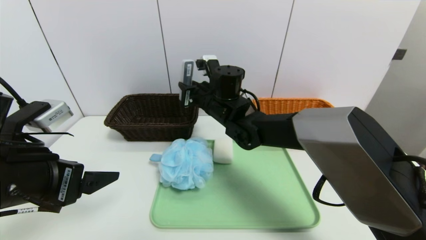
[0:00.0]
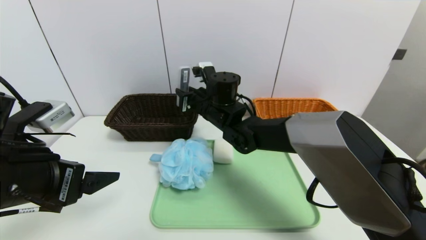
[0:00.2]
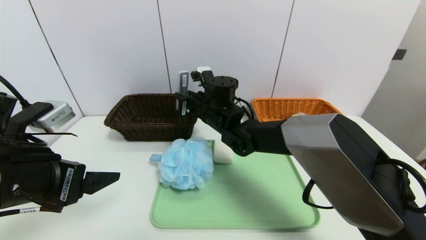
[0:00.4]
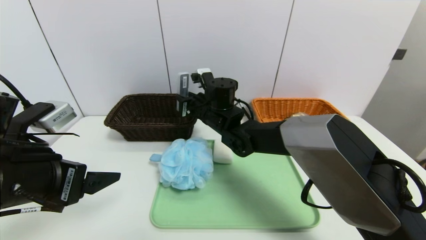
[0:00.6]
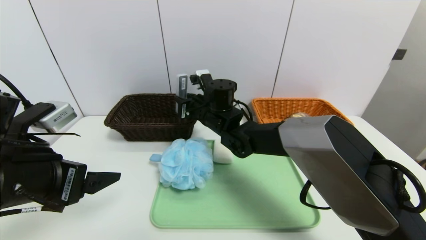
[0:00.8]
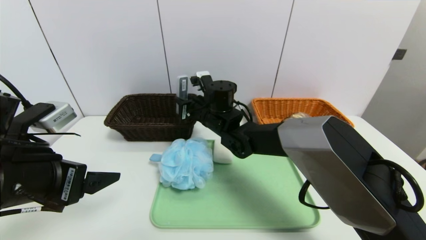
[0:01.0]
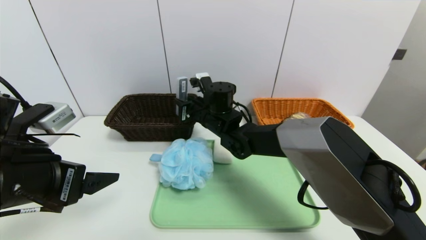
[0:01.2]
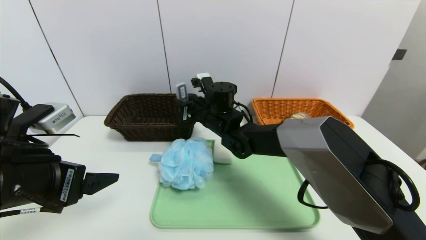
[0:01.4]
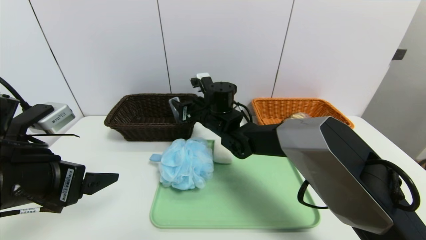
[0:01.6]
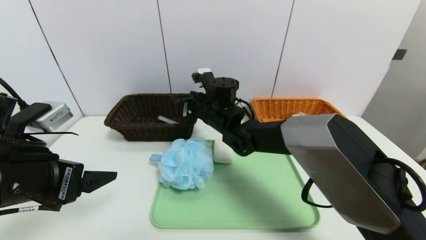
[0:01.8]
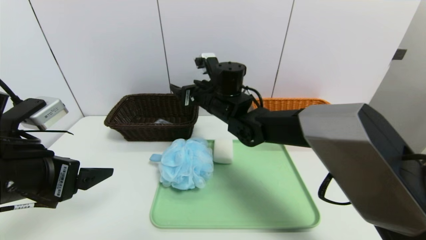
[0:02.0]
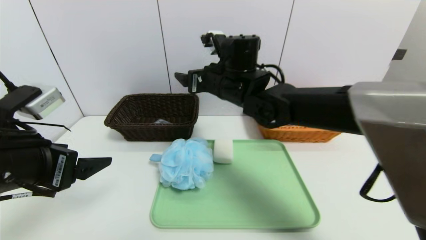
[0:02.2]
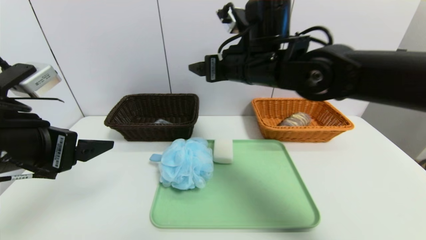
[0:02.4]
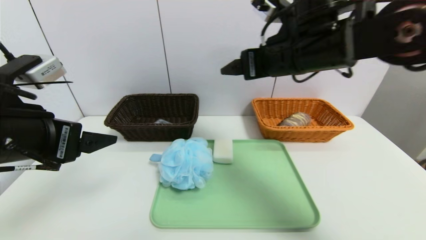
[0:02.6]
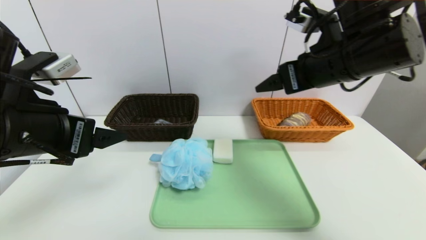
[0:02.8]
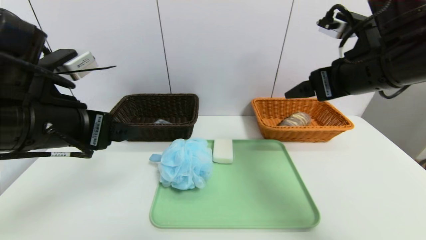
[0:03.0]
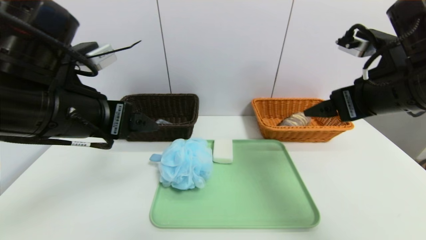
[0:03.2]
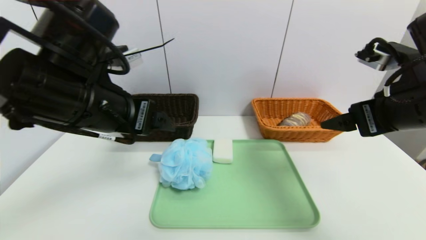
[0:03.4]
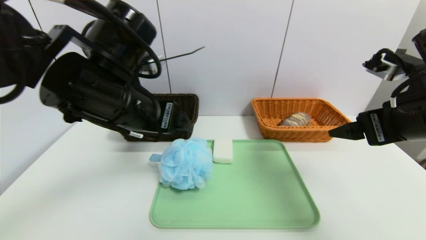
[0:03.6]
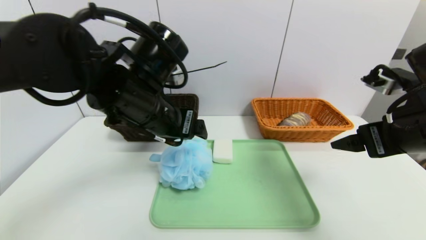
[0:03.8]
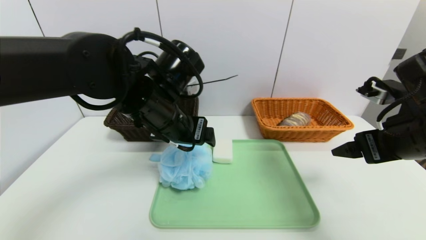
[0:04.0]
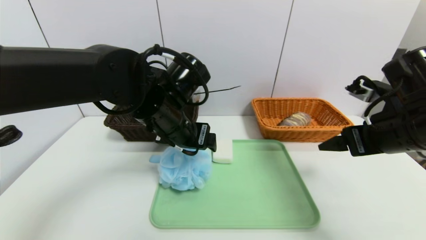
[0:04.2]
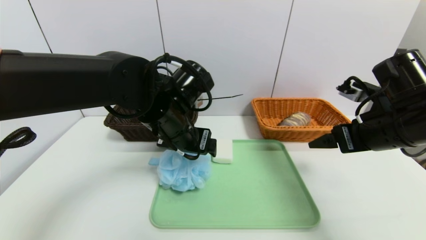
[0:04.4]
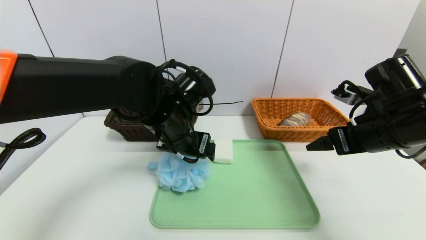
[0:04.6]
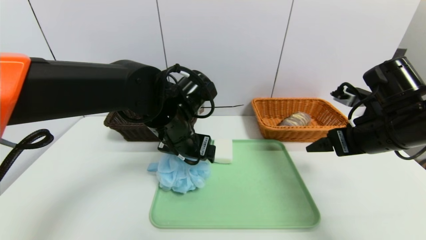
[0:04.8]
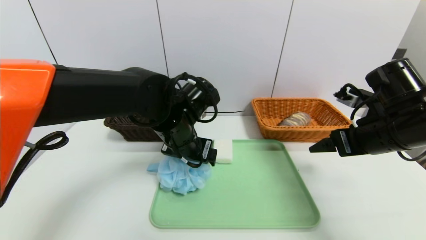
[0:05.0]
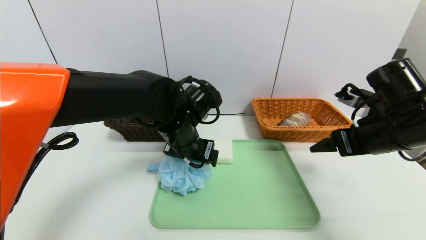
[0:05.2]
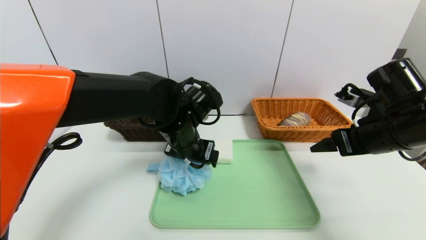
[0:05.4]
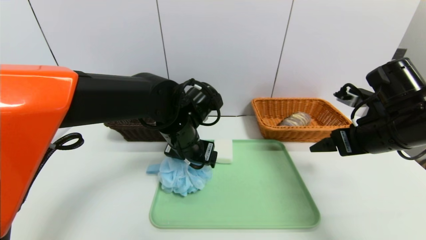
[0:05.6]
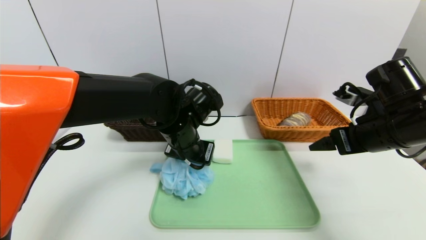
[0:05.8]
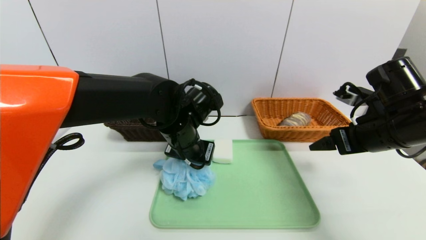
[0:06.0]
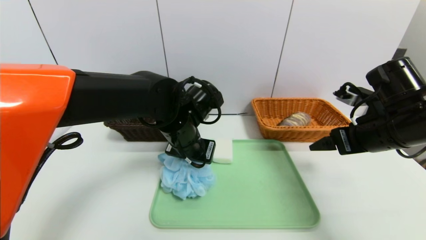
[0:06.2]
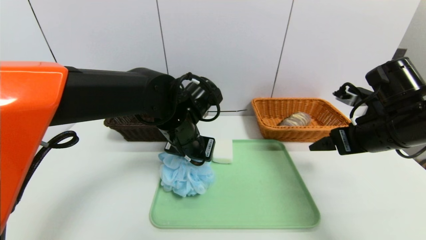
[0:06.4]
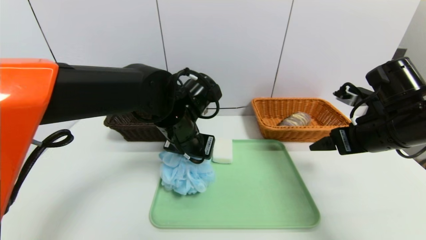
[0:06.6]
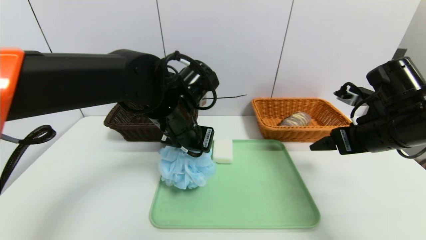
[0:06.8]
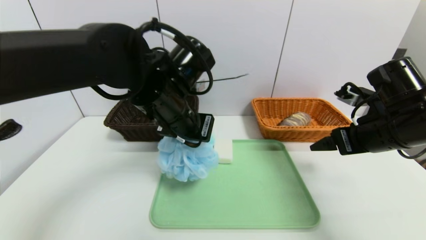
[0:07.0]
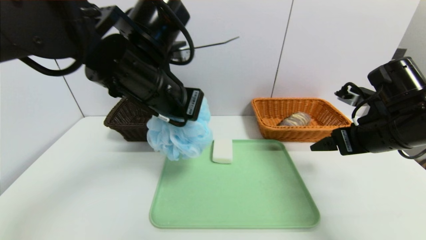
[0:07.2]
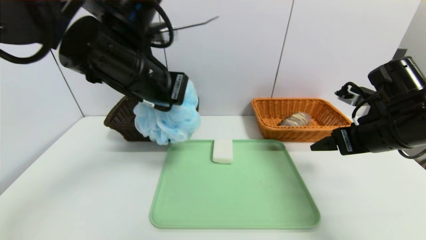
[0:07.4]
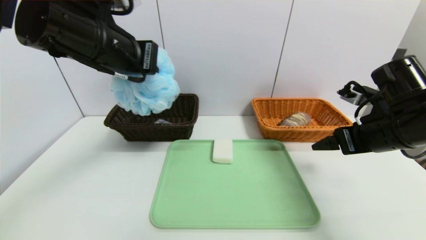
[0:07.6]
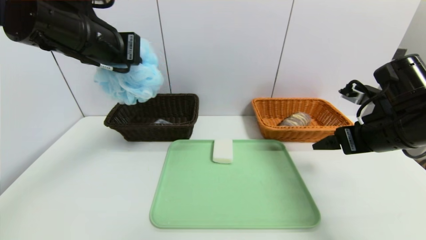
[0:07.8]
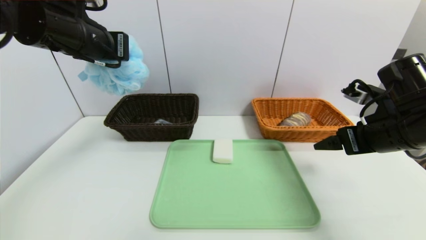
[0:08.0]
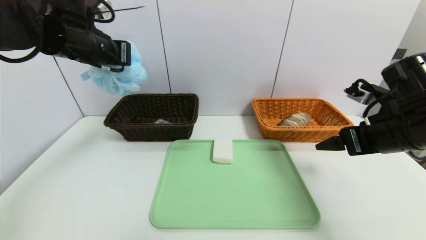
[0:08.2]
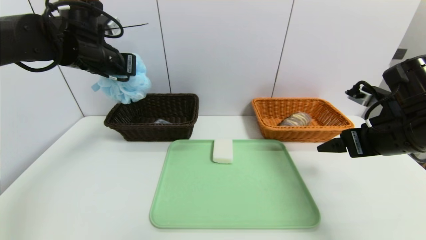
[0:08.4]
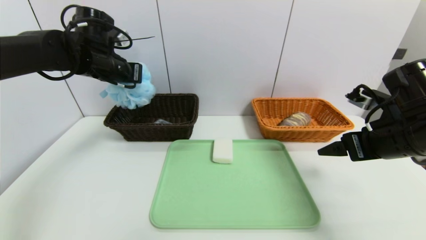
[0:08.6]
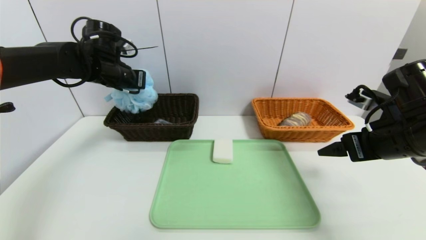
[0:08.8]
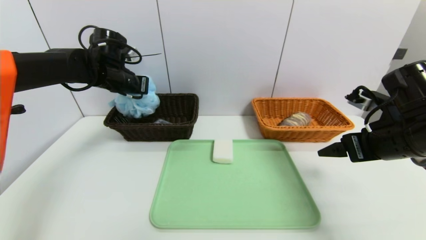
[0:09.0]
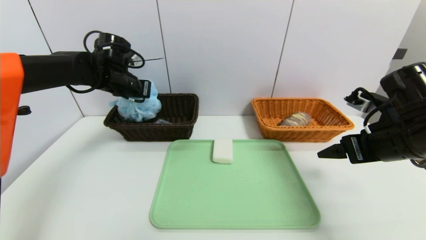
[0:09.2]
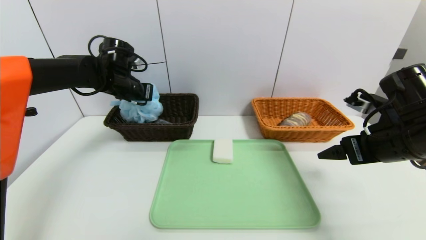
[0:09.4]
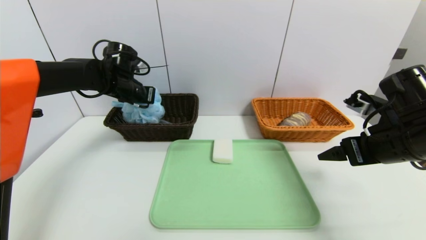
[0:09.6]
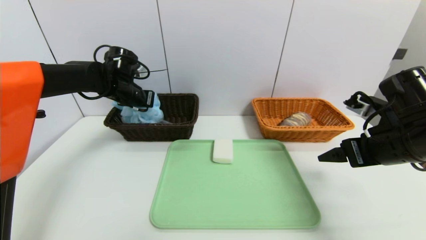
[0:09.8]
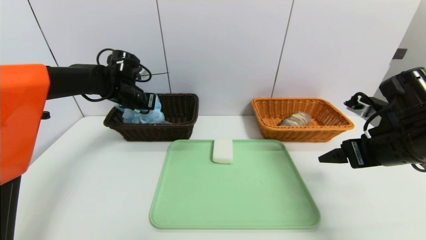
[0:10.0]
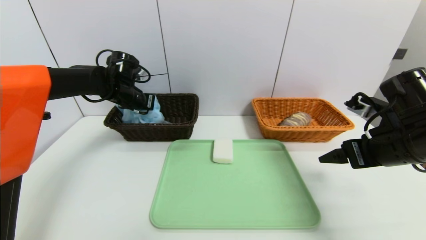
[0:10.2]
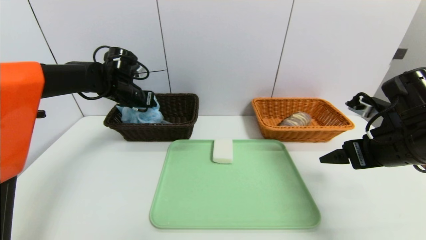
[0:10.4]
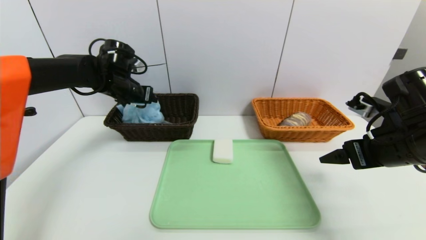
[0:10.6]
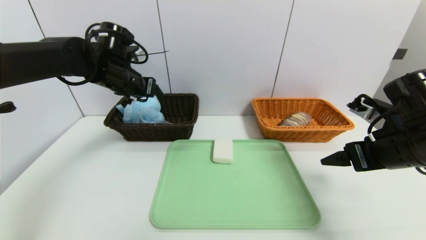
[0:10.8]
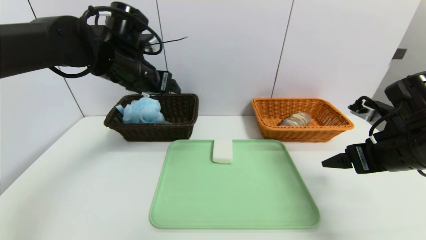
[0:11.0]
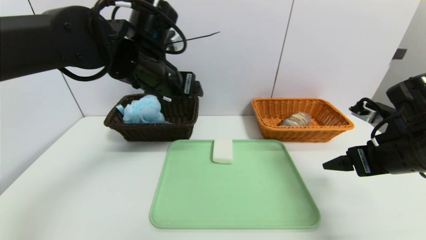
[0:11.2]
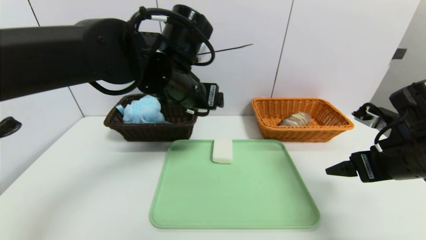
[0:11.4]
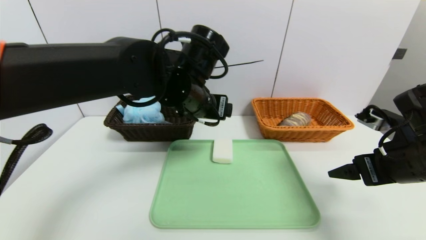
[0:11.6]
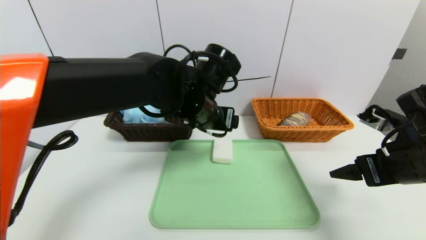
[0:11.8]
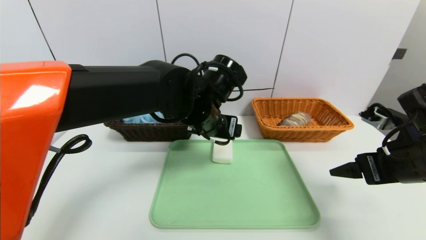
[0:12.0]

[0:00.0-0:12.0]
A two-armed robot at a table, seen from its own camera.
Task of the whole recording: place the food in the right basket with the right gripper, and place the non food items in the left basket with the left gripper.
Step, 0:02.2 to 0:10.6: Grasp the shower sphere and put it in the left basket.
0:00.0 to 0:01.6: The grippers make only small movements.
0:01.6 to 0:03.0: The right gripper is displaced to the right, upward and backward by some 30 cm, and opens its fingers; the left gripper heads upward, covering approximately 5 cm.
0:03.0 to 0:04.4: The left gripper goes some 20 cm to the right, forward and downward. Meanwhile the right gripper shifts approximately 10 cm downward and to the right.
0:04.4 to 0:06.0: The left gripper closes its fingers.
0:06.0 to 0:07.6: The left gripper is displaced upward and to the left by about 20 cm, and closes its fingers.
0:07.6 to 0:09.0: The left gripper is displaced forward, downward and to the left by approximately 20 cm.
0:09.0 to 0:10.4: The left gripper opens.
0:10.4 to 0:12.0: The left gripper travels to the right and backward by approximately 25 cm, and opens up.

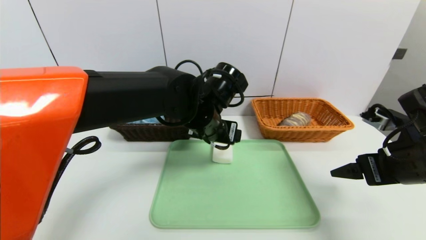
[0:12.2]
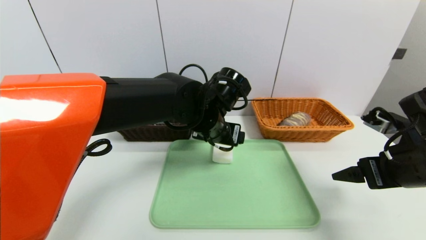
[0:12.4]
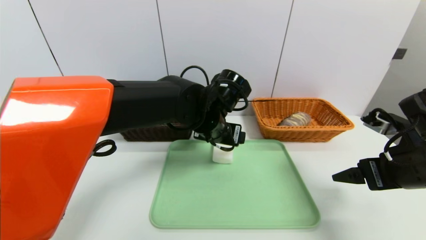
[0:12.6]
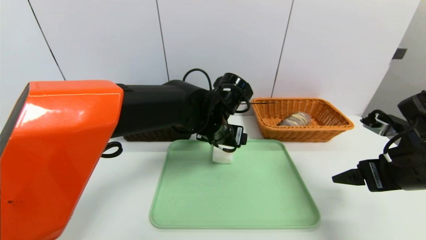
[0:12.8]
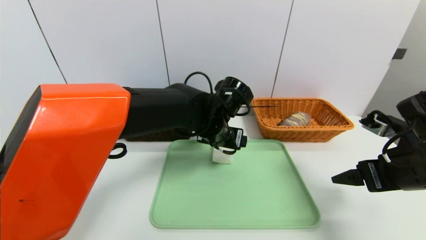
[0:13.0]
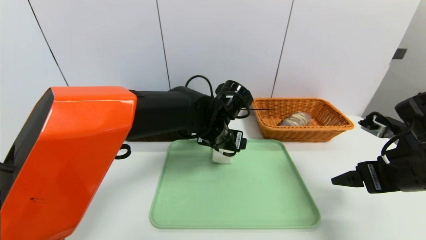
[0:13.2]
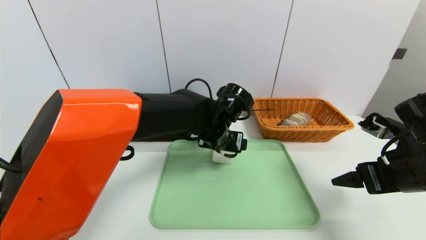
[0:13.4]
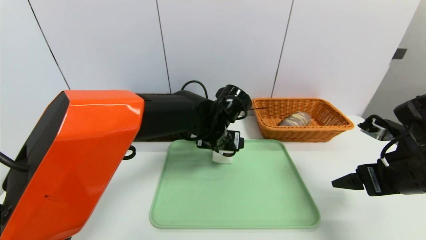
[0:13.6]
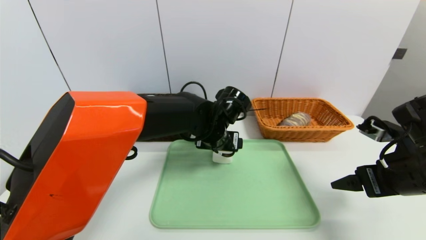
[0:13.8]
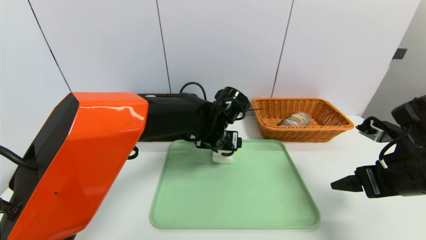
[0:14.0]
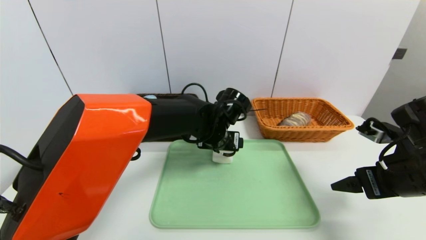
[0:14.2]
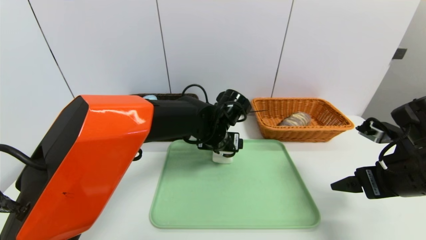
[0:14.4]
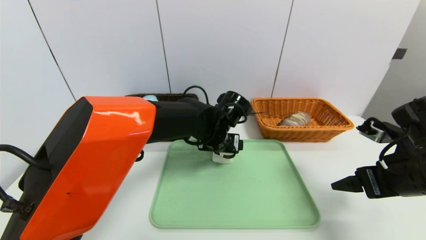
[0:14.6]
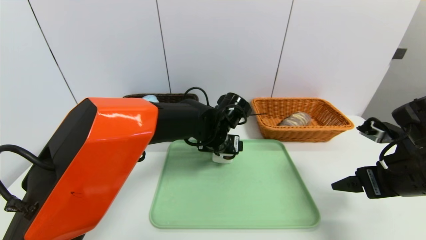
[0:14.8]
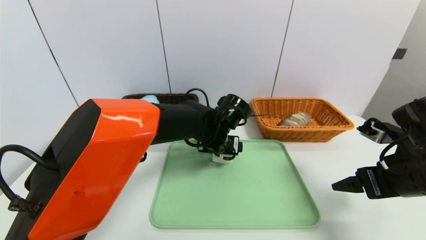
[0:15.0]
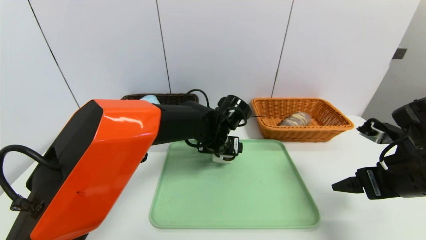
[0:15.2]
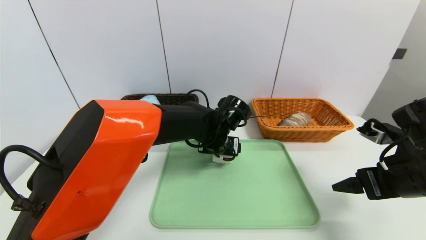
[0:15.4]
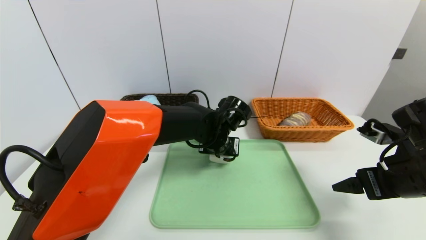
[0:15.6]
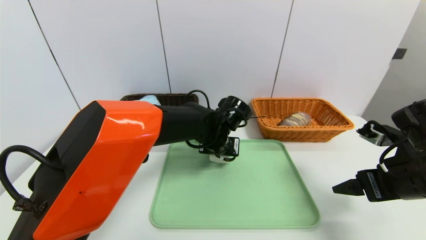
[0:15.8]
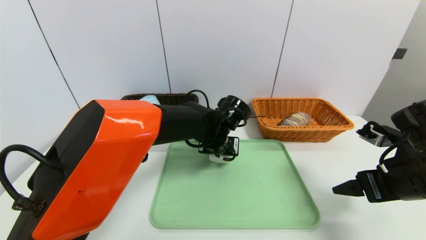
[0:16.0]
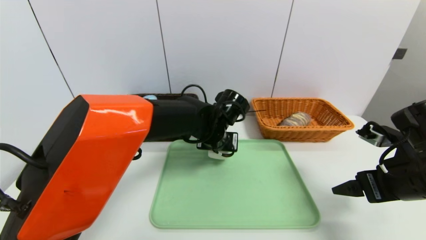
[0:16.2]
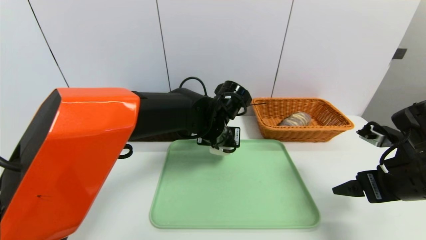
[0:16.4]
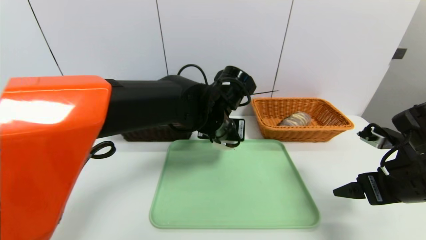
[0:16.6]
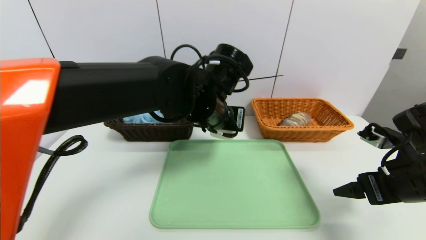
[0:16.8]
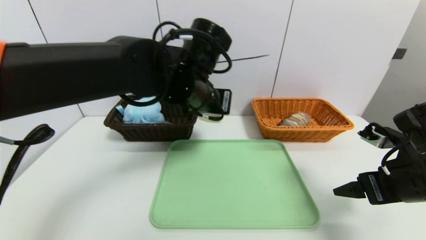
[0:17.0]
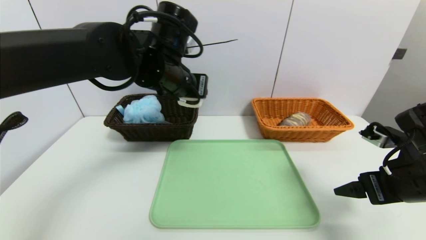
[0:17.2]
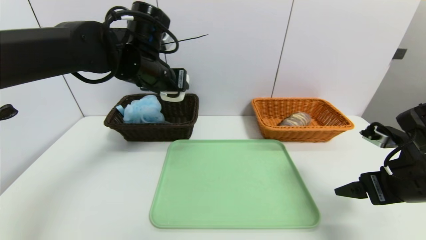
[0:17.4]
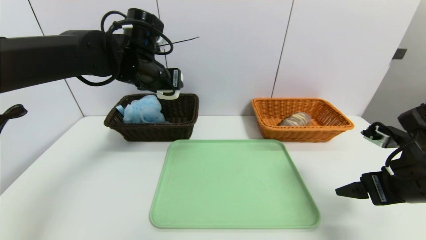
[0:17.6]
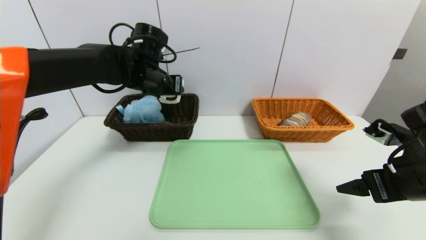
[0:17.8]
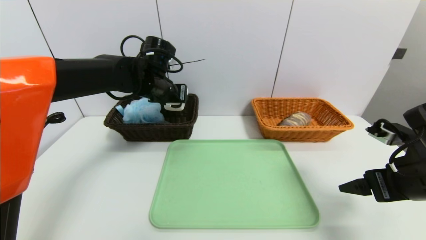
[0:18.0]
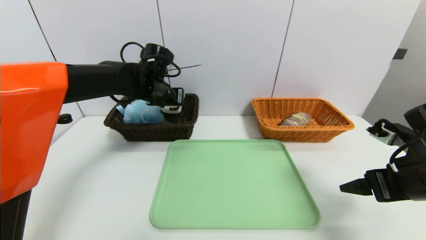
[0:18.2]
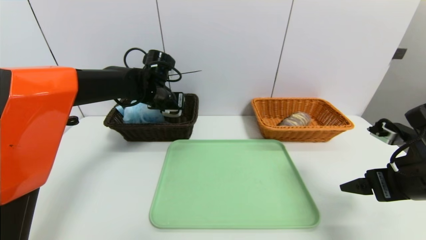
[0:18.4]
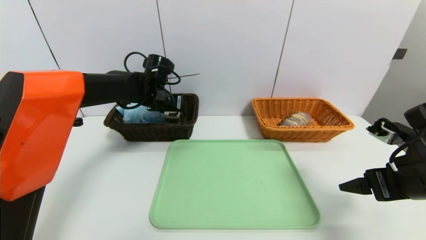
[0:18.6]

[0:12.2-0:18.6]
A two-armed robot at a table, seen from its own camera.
Task of the whole recording: place the food in the right basket with the right gripper, and place the non food items in the left basket with the left gripper.
0:12.2 to 0:13.8: The left gripper is displaced downward by roughly 5 cm.
0:13.8 to 0:15.4: The grippers move only a little.
0:15.4 to 0:17.0: The left gripper is displaced upward and to the left by roughly 15 cm.
0:17.0 to 0:18.6: The left gripper heads forward, to the left and downward, covering roughly 20 cm.
